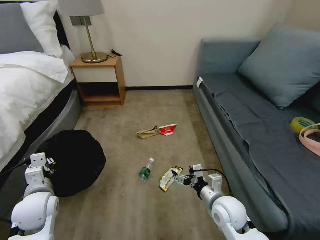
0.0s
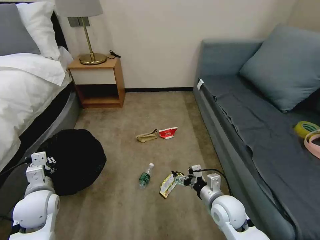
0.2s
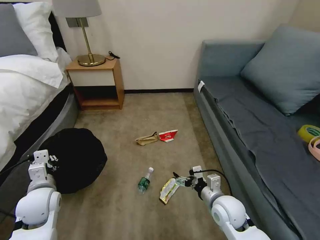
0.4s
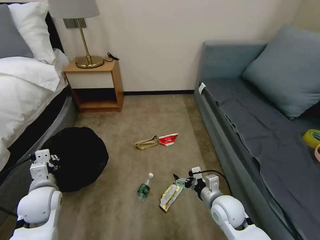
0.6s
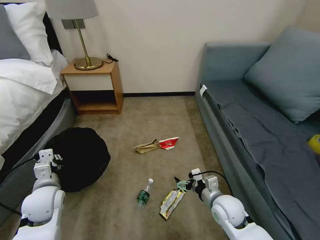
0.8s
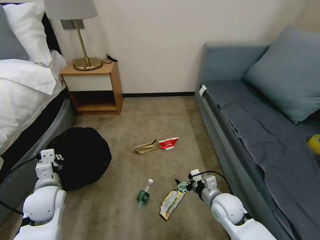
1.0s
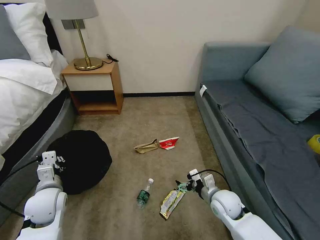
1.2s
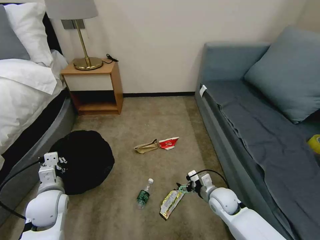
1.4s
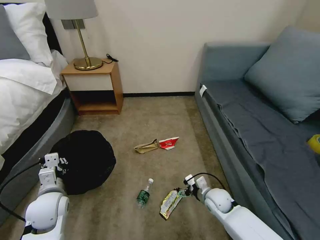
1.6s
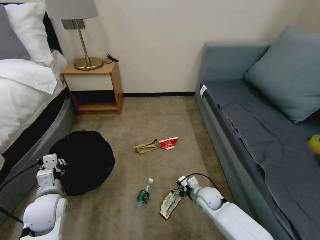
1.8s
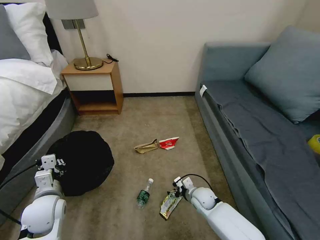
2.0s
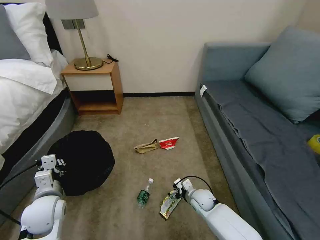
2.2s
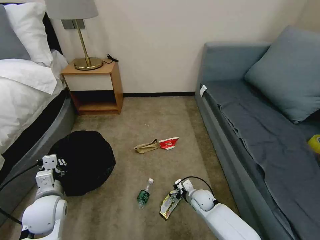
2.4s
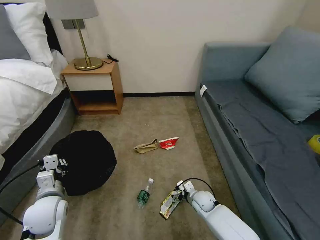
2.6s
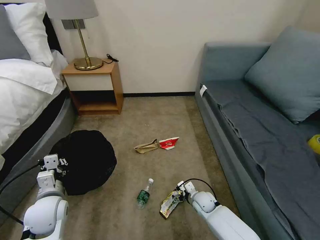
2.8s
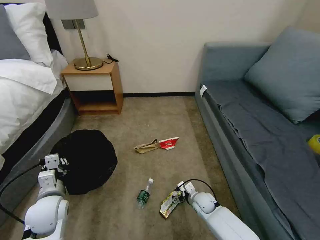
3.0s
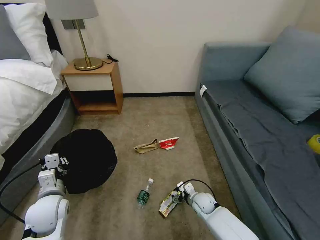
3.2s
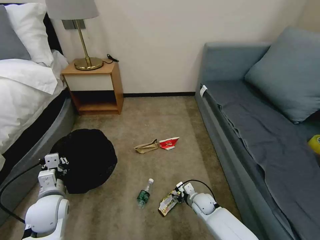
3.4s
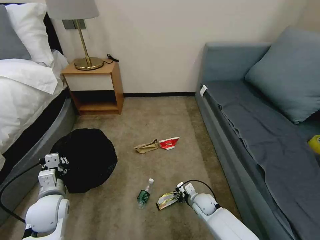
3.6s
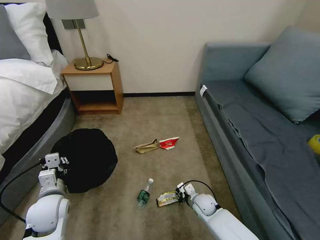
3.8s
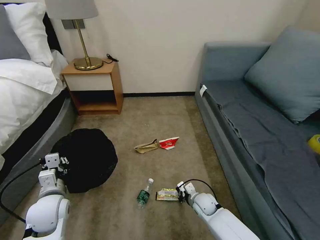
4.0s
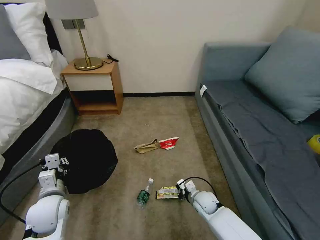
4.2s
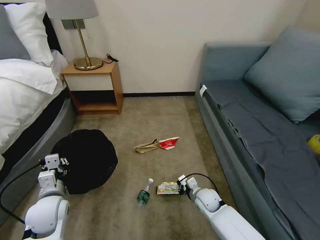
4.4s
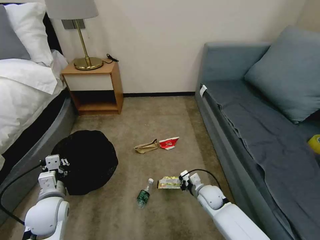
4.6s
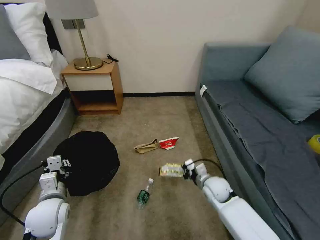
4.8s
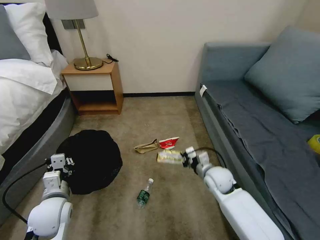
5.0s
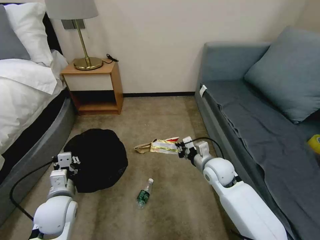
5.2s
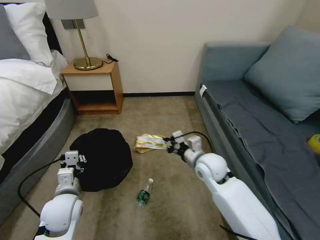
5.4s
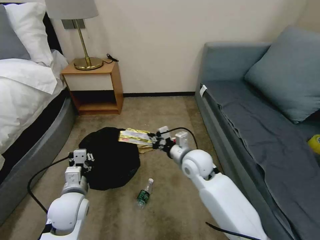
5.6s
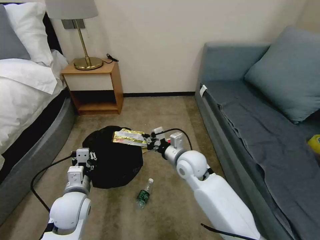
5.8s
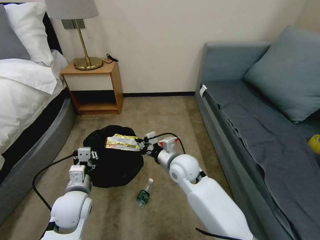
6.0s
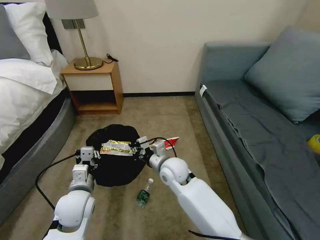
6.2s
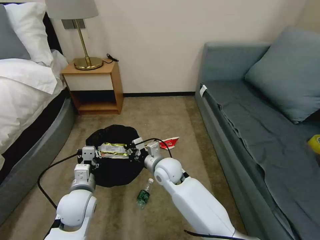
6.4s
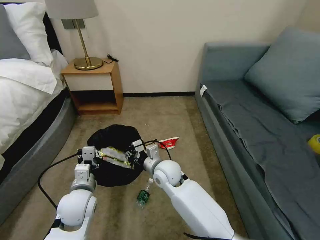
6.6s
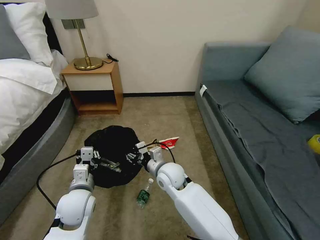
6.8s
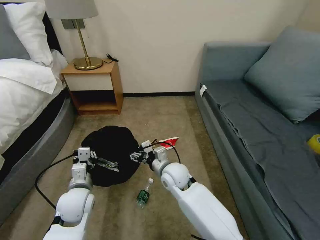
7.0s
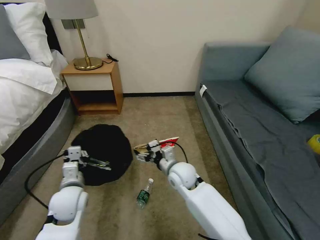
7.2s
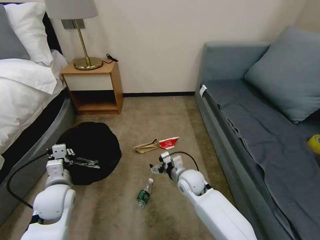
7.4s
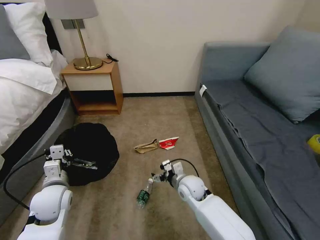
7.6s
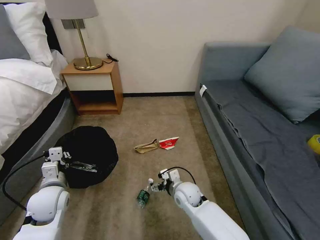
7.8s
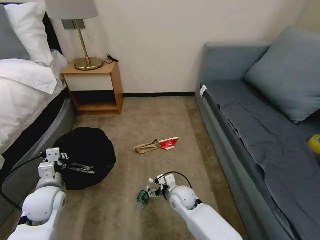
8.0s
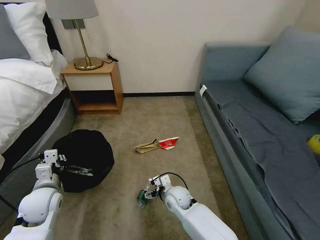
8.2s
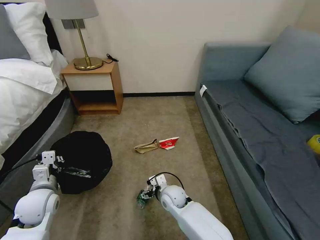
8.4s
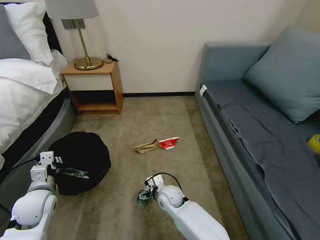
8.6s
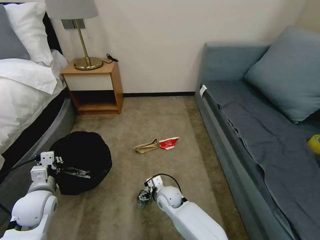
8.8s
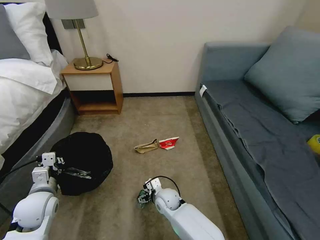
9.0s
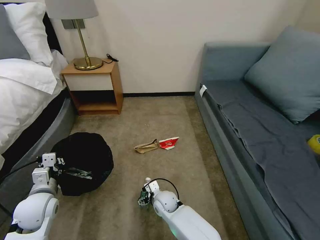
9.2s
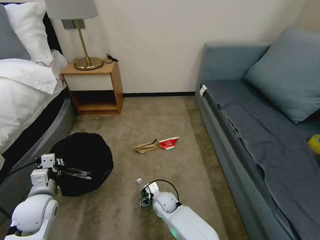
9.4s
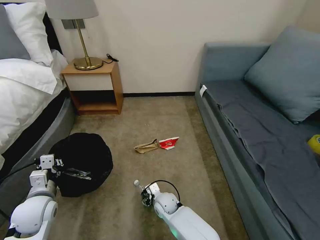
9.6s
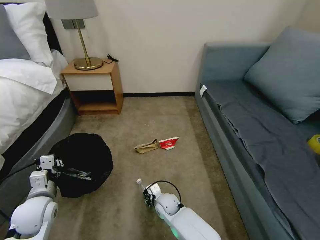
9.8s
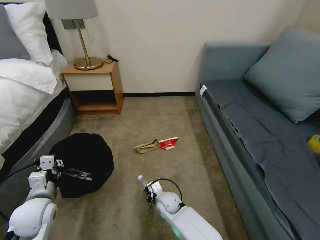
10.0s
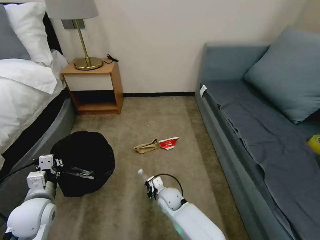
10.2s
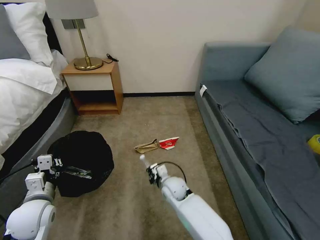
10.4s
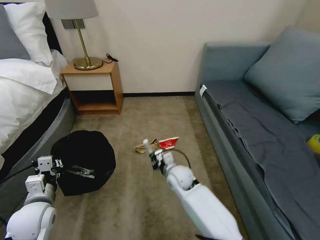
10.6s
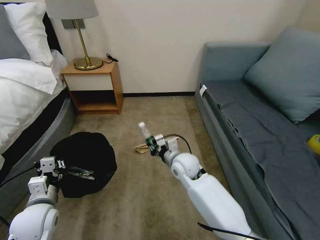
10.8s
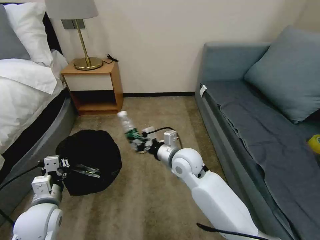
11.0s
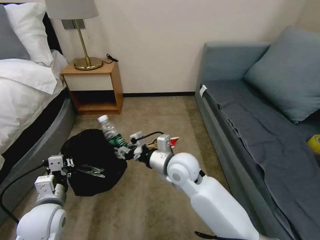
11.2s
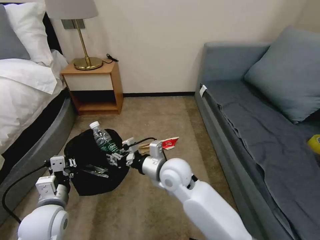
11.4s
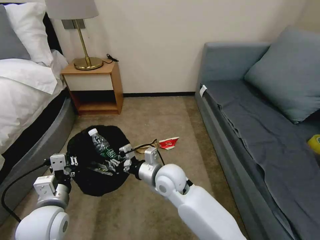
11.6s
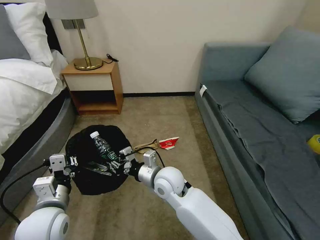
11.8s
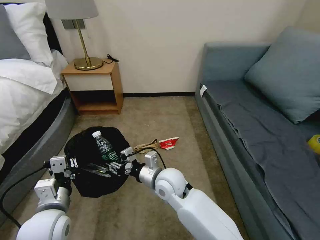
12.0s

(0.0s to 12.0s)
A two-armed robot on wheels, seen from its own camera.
Task of the whole recording: Pick up the trash bin, then pick up the garbage on the floor and place it into the trash bin.
0.0s - 1.6s: The right gripper shifts about 15 cm downward and forward.
1.6s - 3.0s: The right gripper travels downward by about 5 cm.
3.0s - 4.4s: The right gripper closes its fingers.
4.4s - 6.0s: The right gripper is displaced upward and to the left by some 25 cm. The left gripper goes roughly 5 cm to the right.
6.0s - 7.6s: The left gripper heads to the left, covering some 5 cm. The right gripper is displaced downward by approximately 10 cm, and opens up.
7.6s - 9.0s: The right gripper moves to the left and downward, about 10 cm.
9.0s - 10.4s: The right gripper changes place by approximately 5 cm, and closes.
10.4s - 12.0s: The left gripper heads to the right, covering some 5 cm. The right gripper heads upward, covering roughly 15 cm.

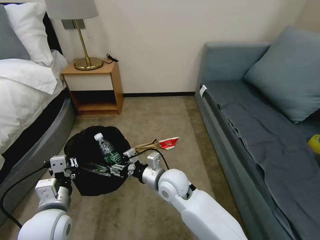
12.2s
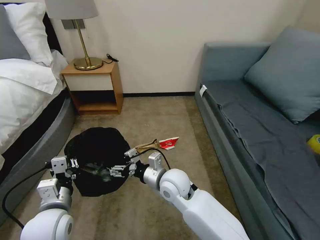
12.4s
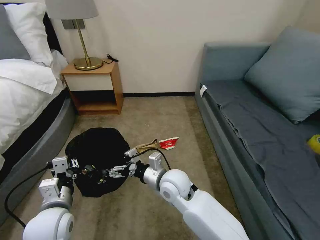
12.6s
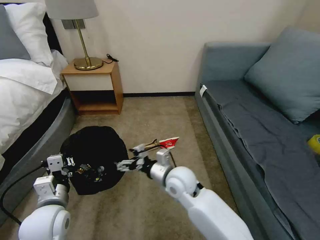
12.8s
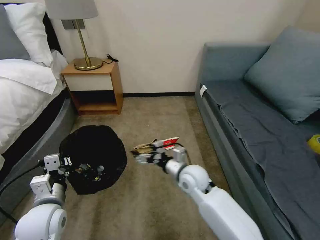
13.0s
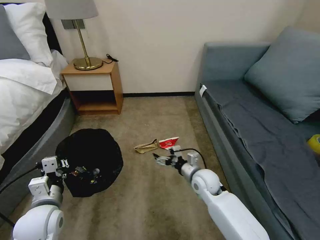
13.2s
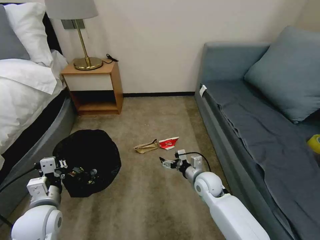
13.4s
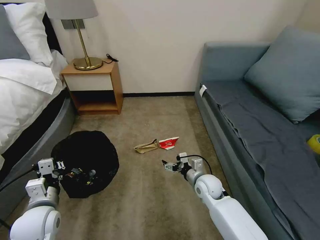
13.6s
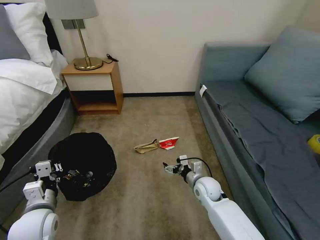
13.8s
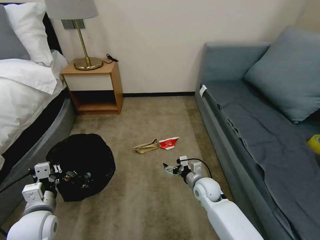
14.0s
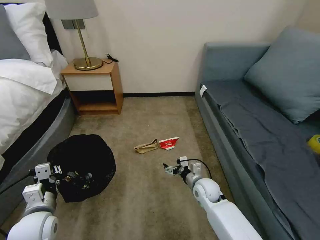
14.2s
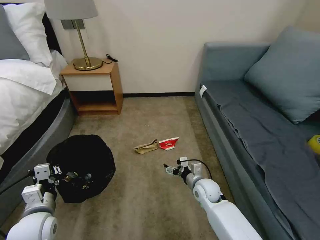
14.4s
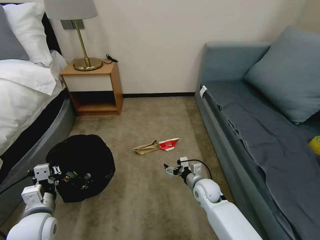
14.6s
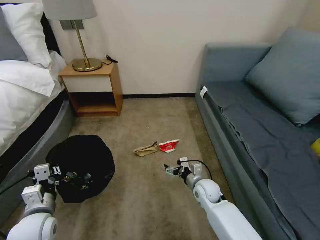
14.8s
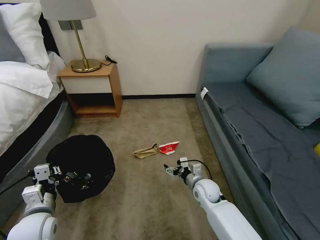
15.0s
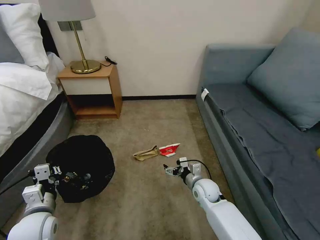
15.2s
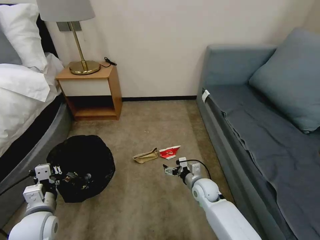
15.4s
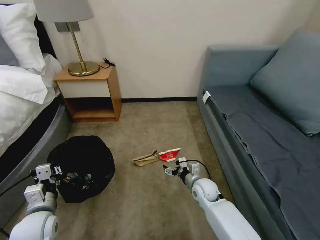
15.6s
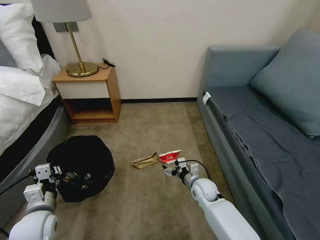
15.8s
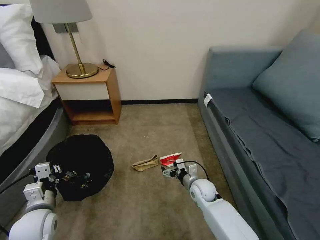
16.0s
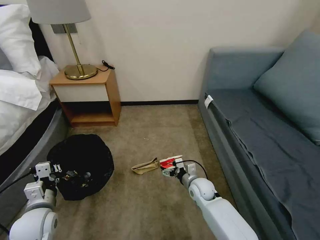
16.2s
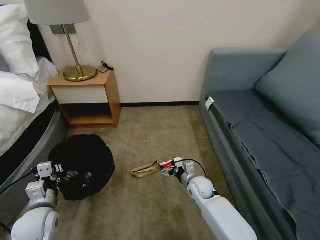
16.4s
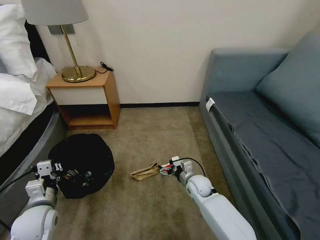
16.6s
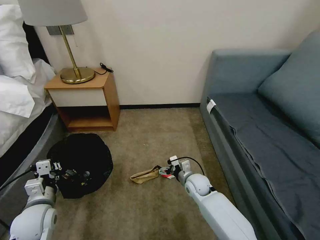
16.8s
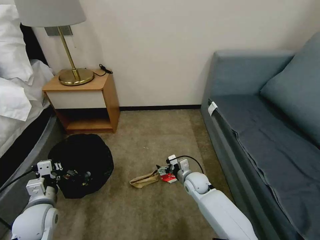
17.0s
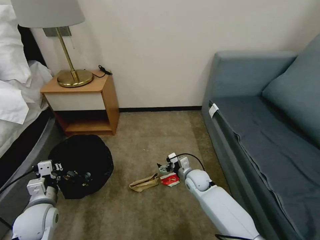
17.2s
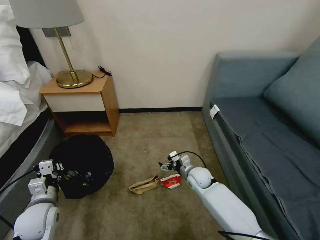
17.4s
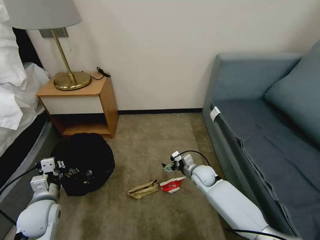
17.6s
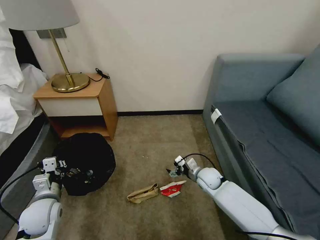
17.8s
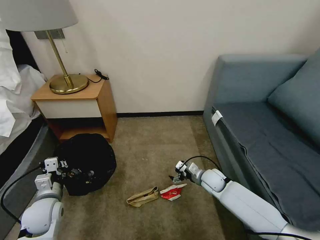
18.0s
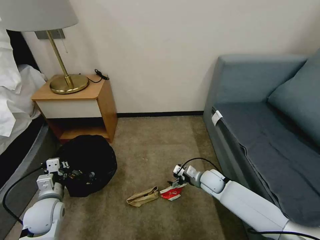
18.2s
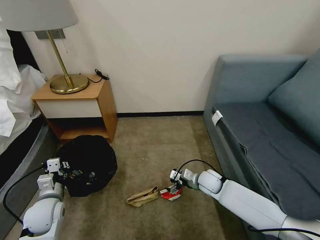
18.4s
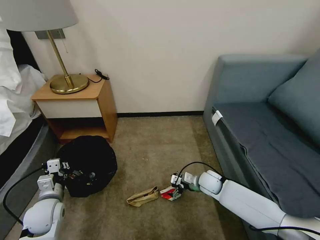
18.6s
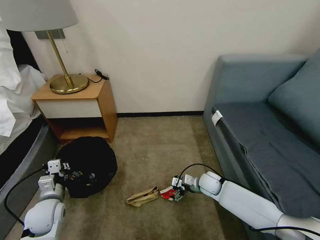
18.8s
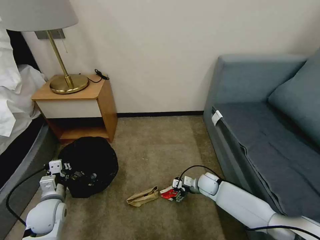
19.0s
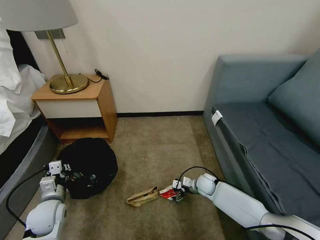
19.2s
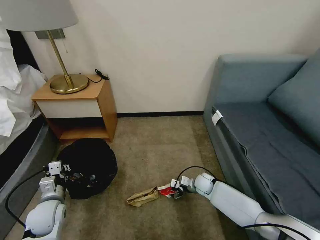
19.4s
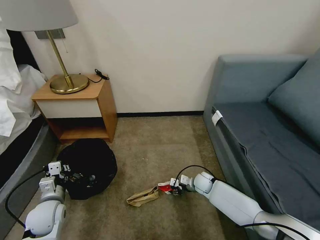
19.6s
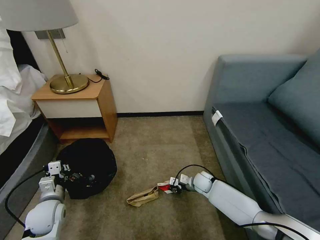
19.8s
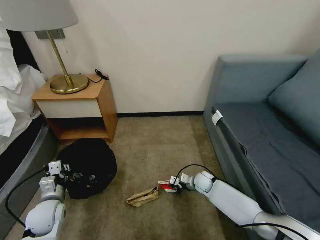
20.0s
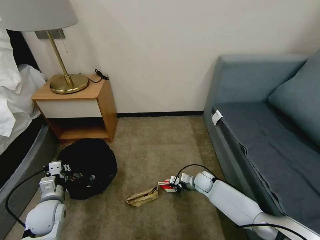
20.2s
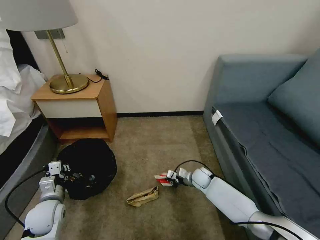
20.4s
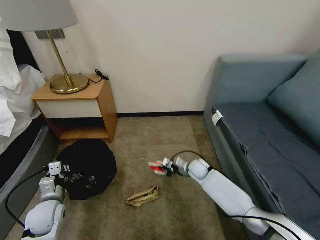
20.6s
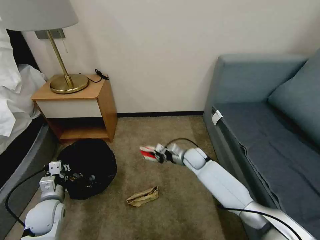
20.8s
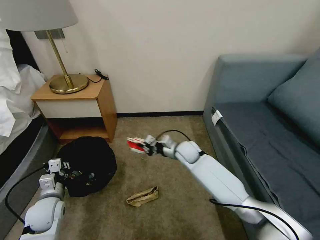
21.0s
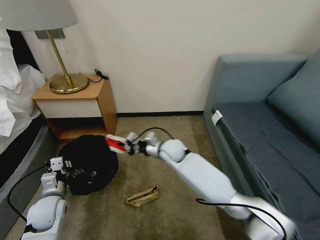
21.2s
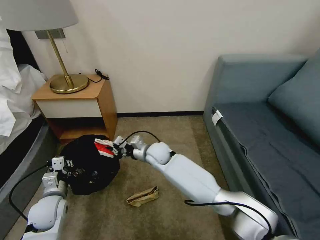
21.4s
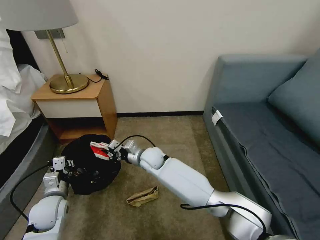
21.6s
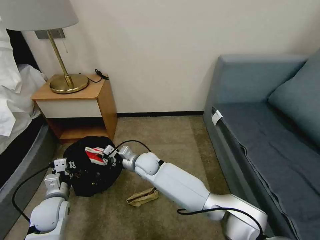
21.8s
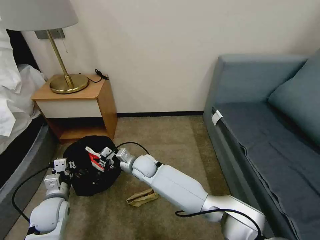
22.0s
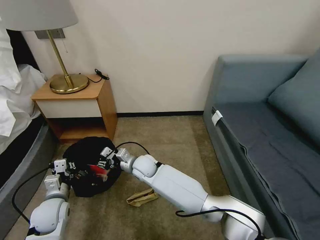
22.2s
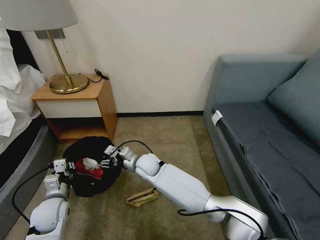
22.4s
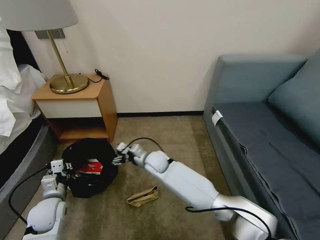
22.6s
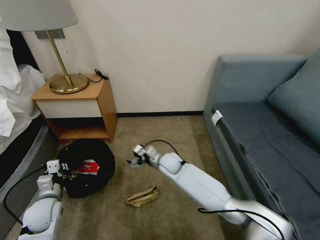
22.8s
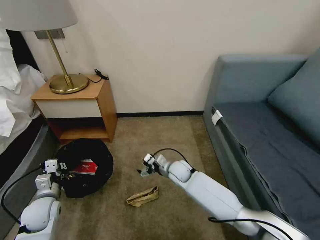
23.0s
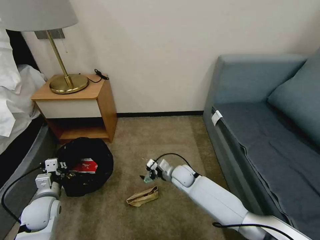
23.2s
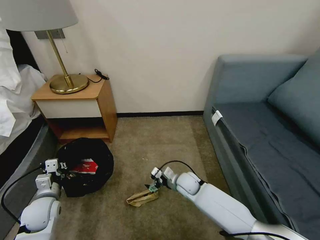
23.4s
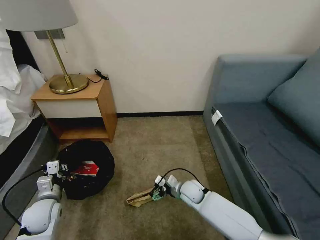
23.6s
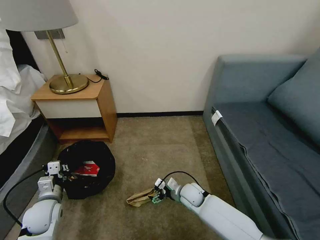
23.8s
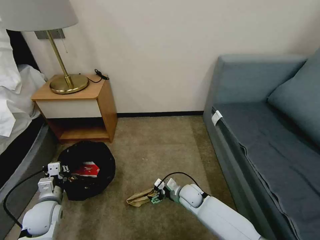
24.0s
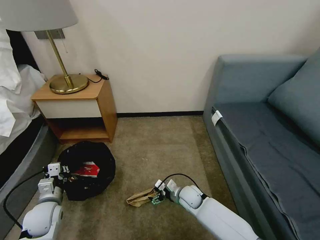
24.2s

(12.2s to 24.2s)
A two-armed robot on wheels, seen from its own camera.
Task of the whole recording: Pick up the trash bin, then pick up the garbage on the floor and place it into the trash bin.
12.2s - 13.8s: The right gripper heads to the right and downward, covering some 20 cm, and opens its fingers. Meanwhile the left gripper is displaced to the left by some 5 cm.
13.8s - 15.2s: The grippers move only a little.
16.6s - 18.2s: The right gripper heads to the right, covering roughly 5 cm.
18.2s - 19.8s: The right gripper goes roughly 5 cm downward, and closes up.
19.8s - 21.2s: The right gripper moves upward and to the left, approximately 25 cm.
21.2s - 22.6s: The right gripper moves to the left and downward, approximately 10 cm, and opens.
22.6s - 24.2s: The right gripper is displaced to the right, downward and backward by about 20 cm.
